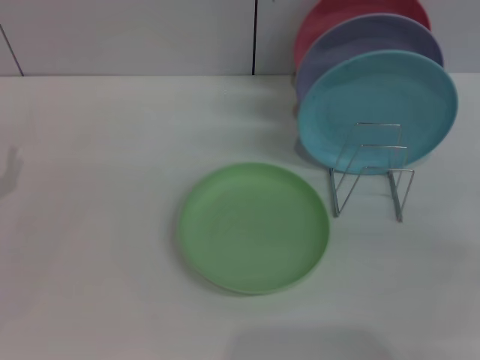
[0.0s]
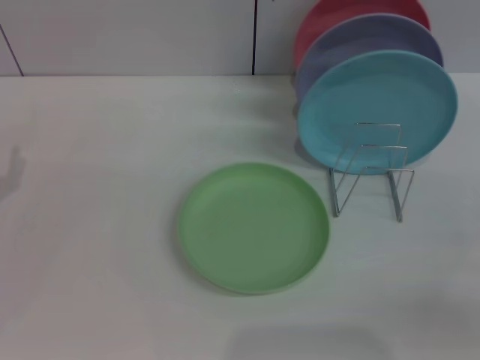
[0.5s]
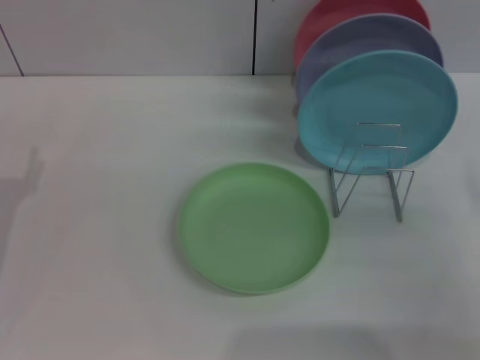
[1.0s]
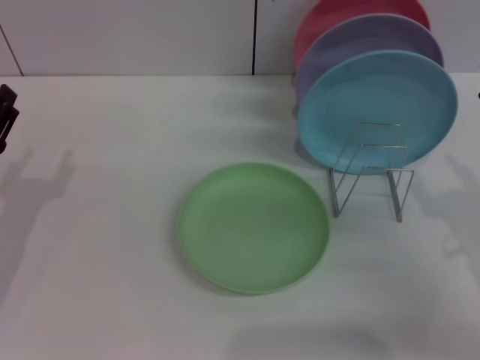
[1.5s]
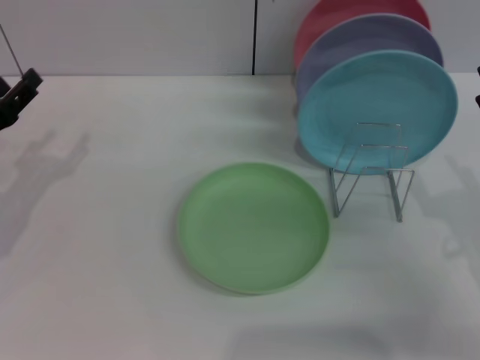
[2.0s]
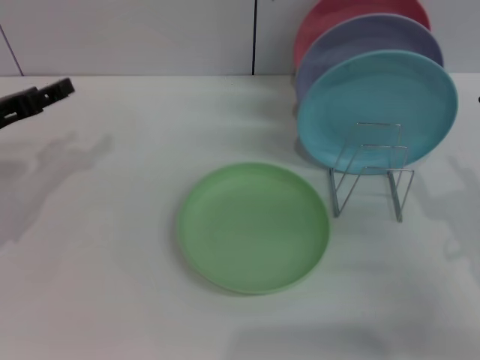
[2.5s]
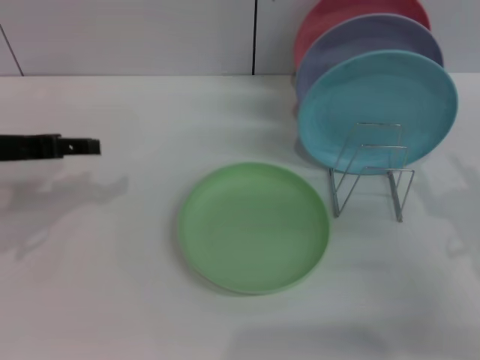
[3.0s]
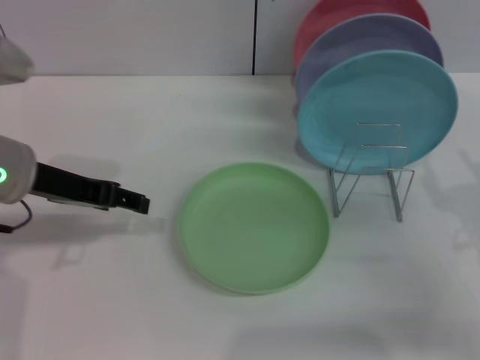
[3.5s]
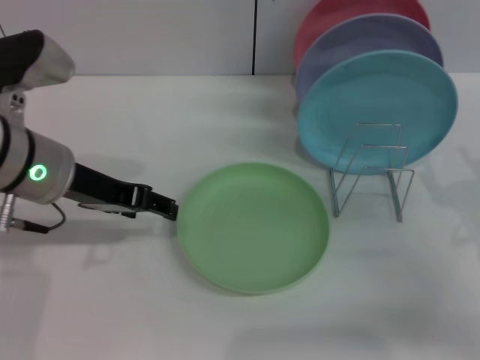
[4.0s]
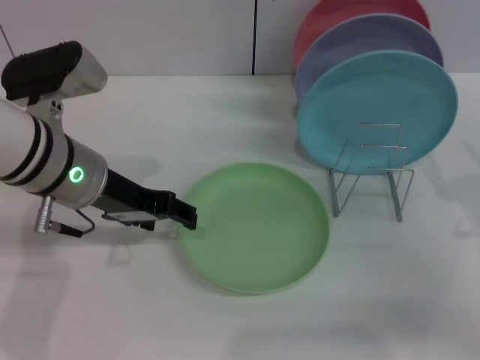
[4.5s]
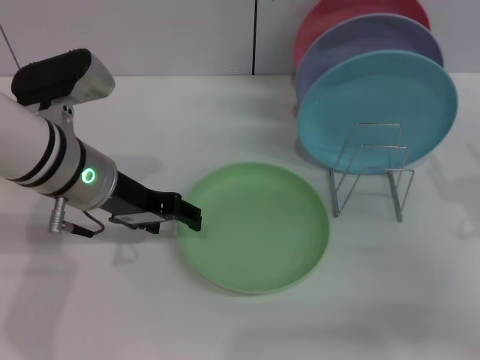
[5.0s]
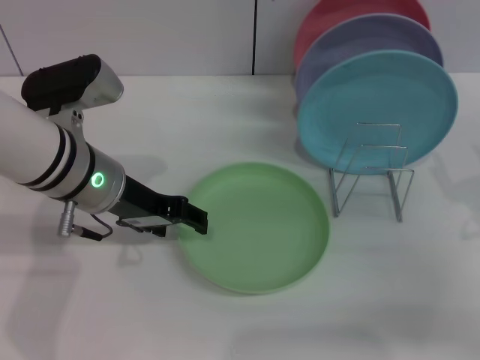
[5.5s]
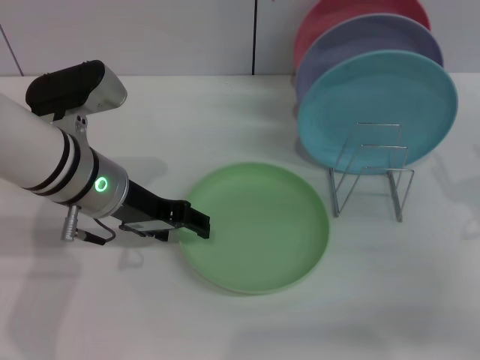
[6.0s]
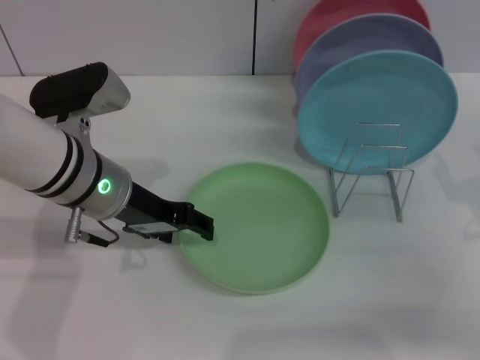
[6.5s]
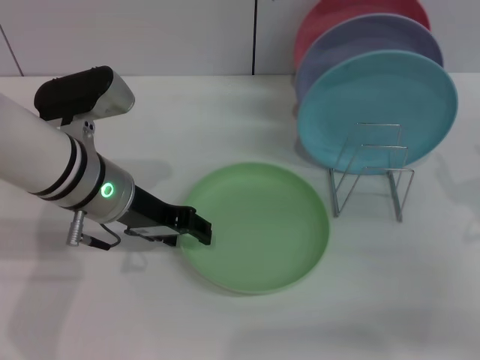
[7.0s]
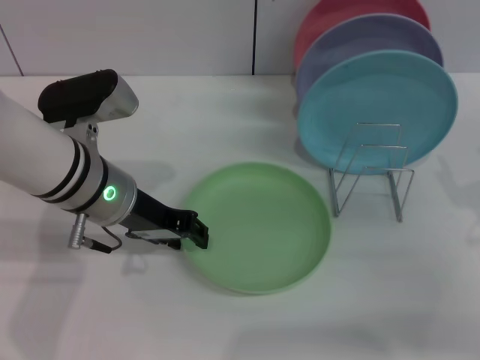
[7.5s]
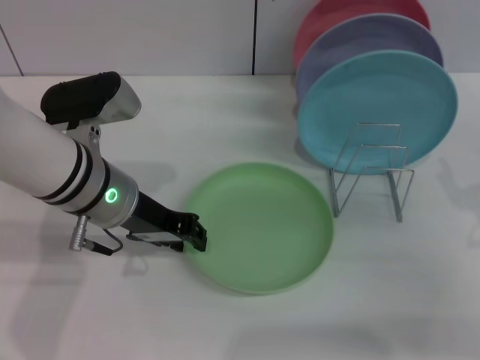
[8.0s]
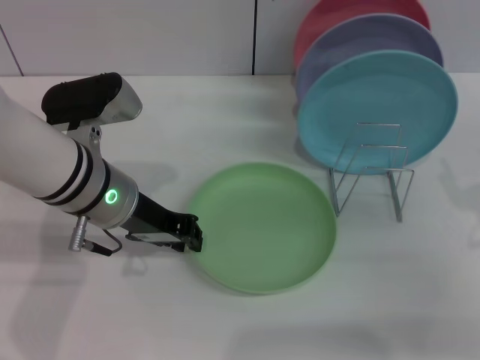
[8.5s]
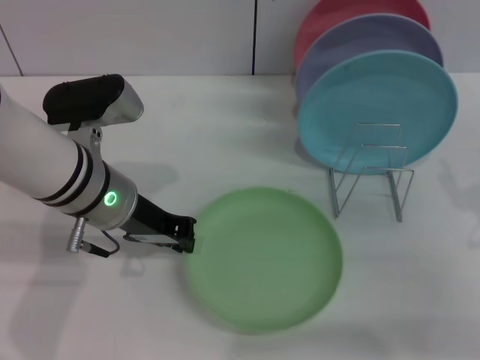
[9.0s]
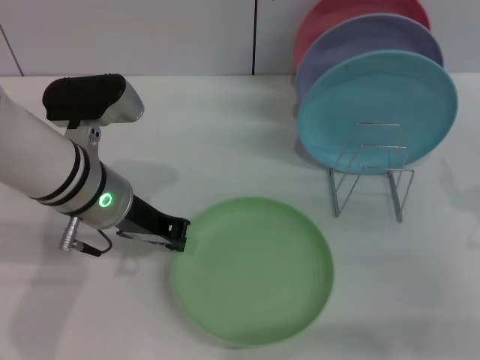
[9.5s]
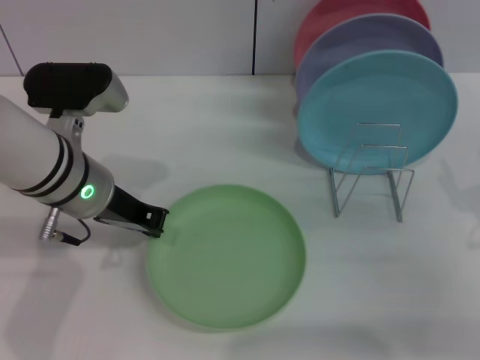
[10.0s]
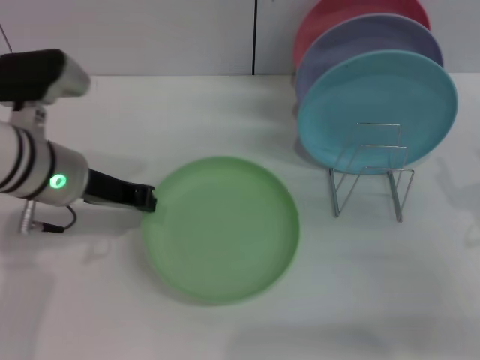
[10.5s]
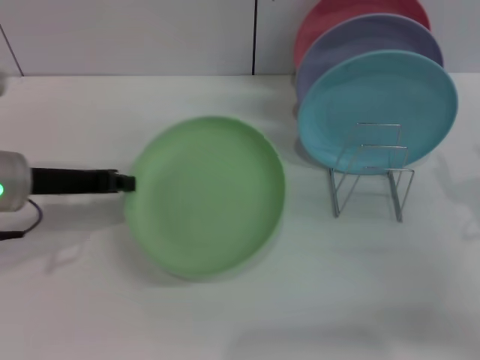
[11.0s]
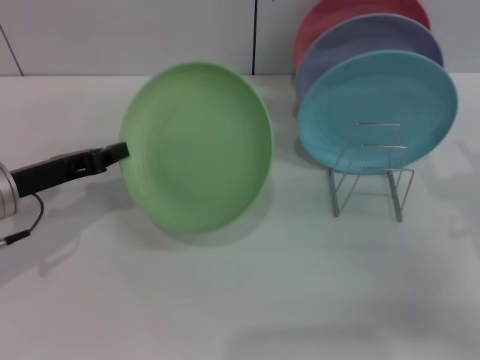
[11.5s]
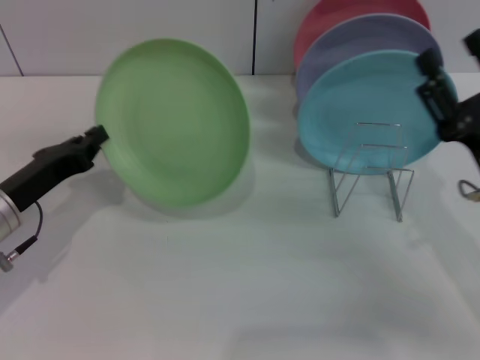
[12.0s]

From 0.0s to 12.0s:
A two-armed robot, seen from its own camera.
Task of the whole recording: Grip the plate with one hand, pass it to the other, then set it on the shelf.
Step, from 0.0s to 11.0s: Pick up the plate with the left gripper.
From 0.0s to 2.0s: The left gripper shifts by roughly 5 cm.
From 2.0s to 4.0s: The left gripper moves to the right and upward, roughly 15 cm.
From 4.0s to 6.0s: The left gripper ends up approximately 5 cm from where it was.
From 6.0s to 8.0s: The left gripper closes up.
From 8.0s to 10.0s: The left gripper closes.
From 10.0s to 12.0s: The left gripper travels to the left and downward by some 15 cm; the right gripper is displaced to the left by approximately 5 cm.

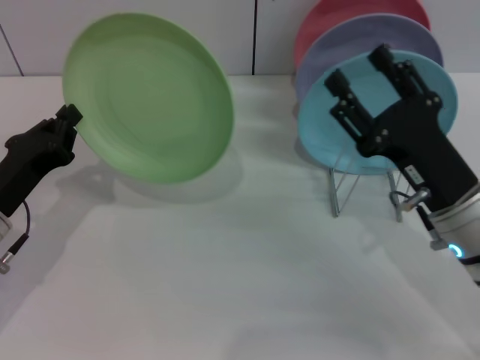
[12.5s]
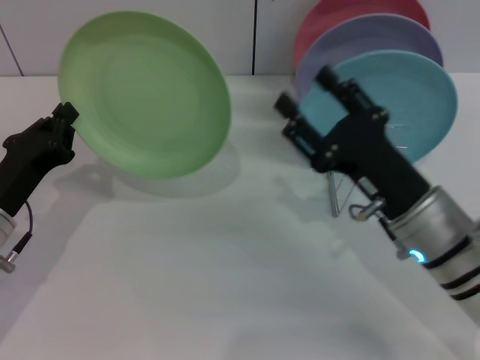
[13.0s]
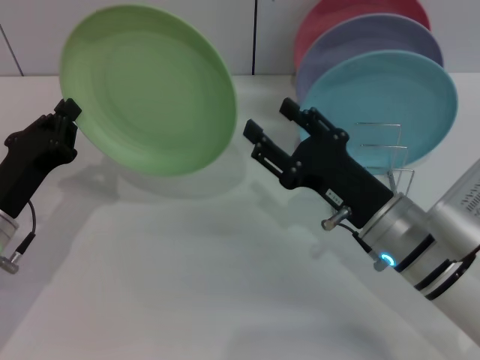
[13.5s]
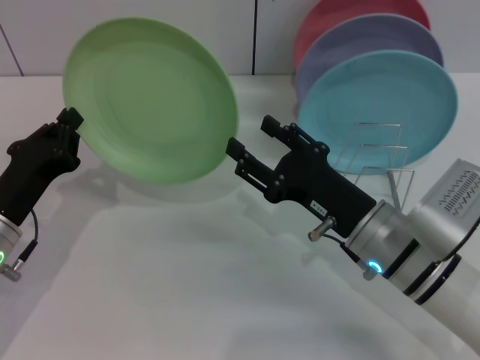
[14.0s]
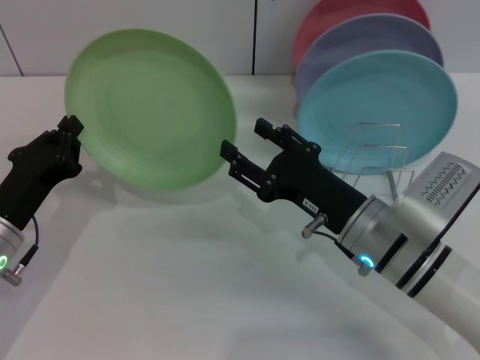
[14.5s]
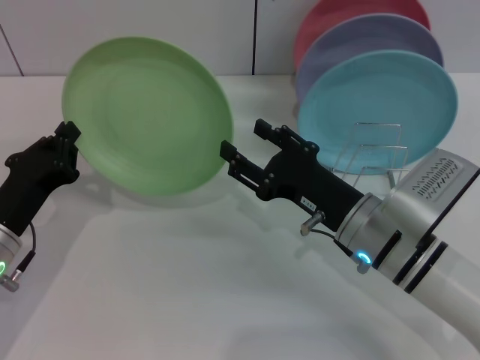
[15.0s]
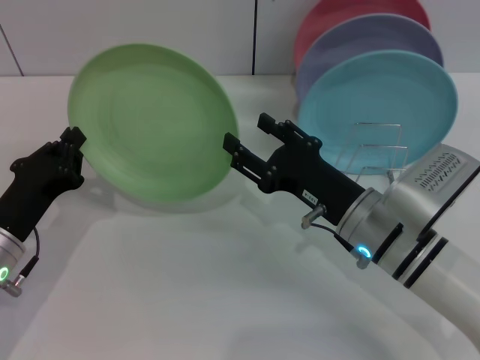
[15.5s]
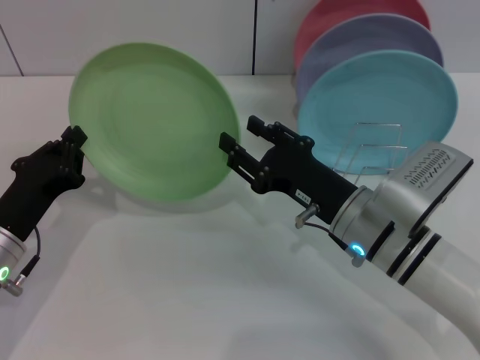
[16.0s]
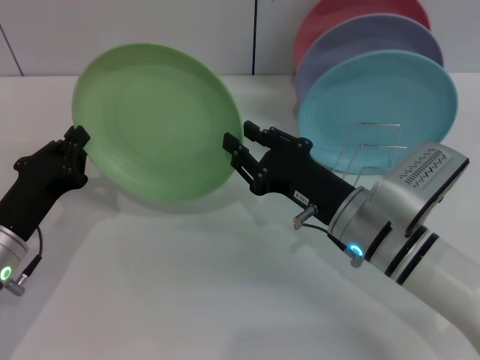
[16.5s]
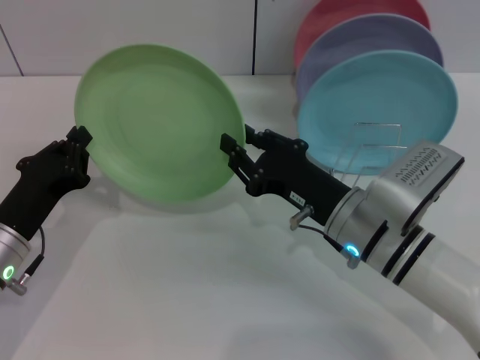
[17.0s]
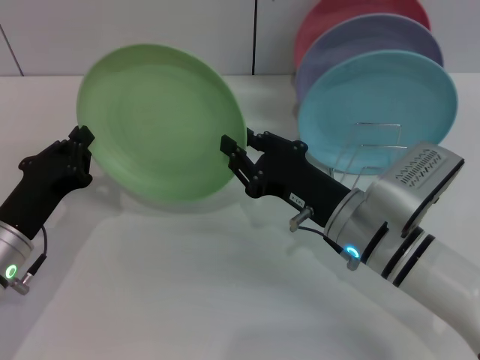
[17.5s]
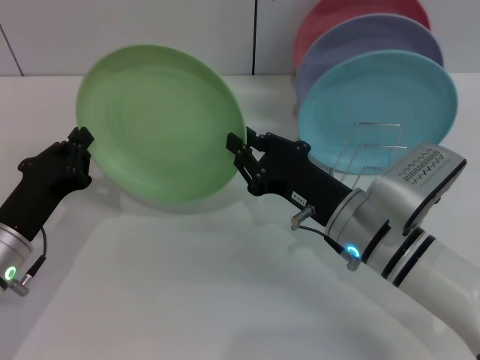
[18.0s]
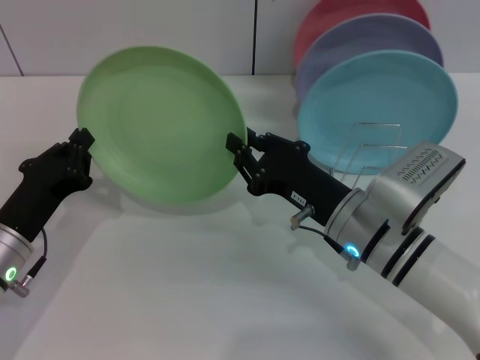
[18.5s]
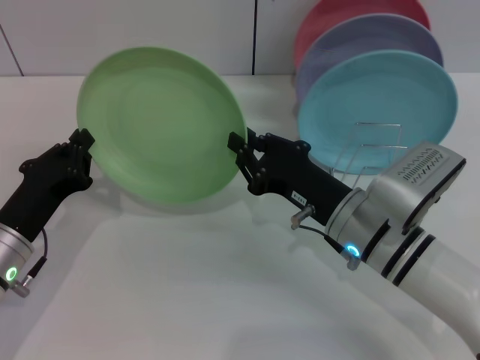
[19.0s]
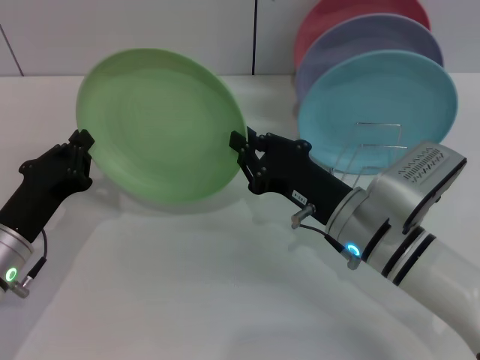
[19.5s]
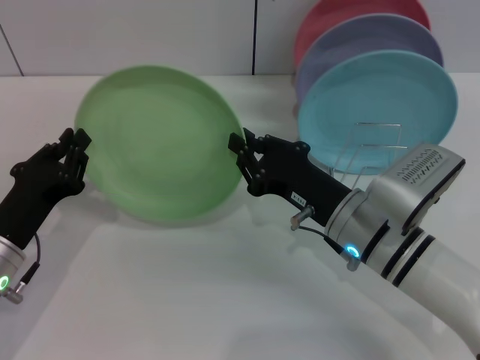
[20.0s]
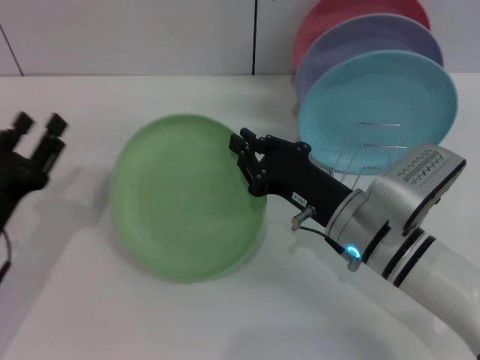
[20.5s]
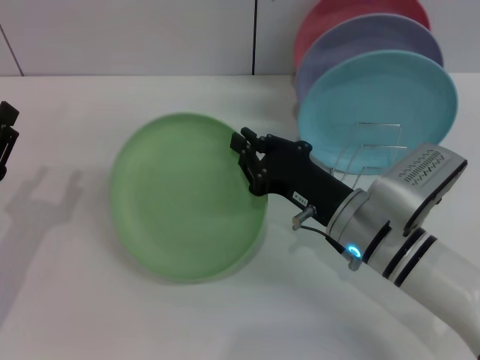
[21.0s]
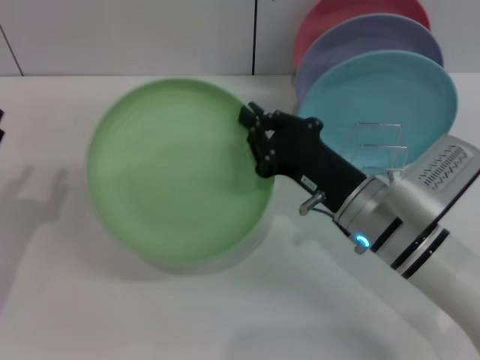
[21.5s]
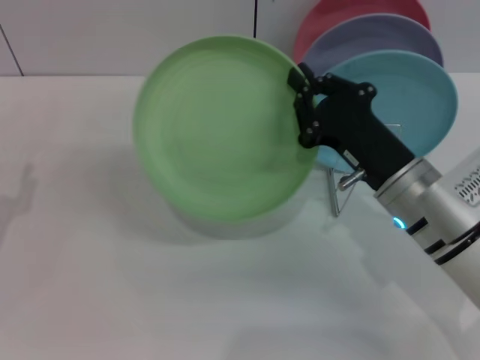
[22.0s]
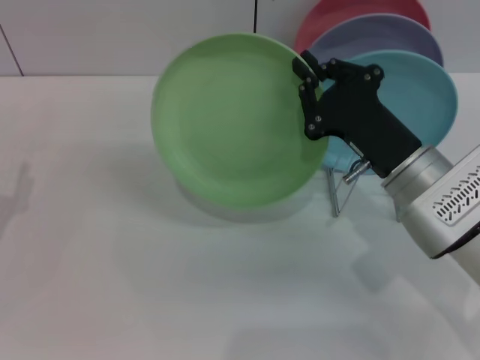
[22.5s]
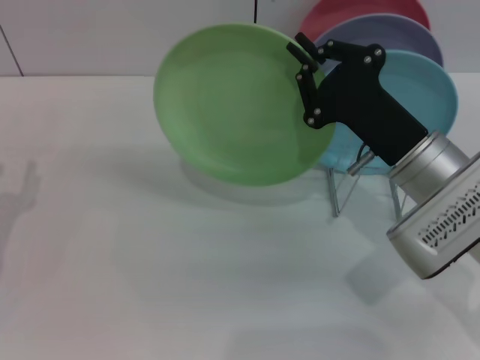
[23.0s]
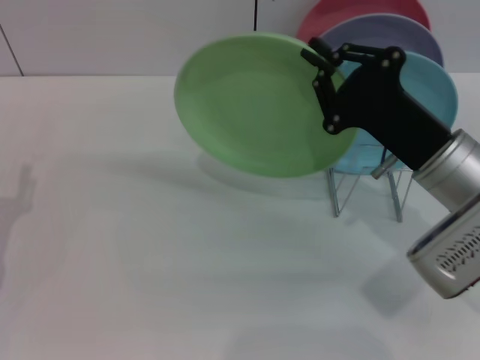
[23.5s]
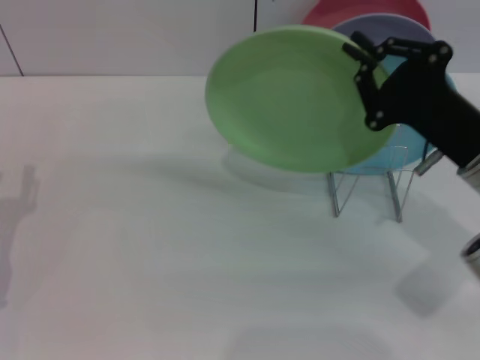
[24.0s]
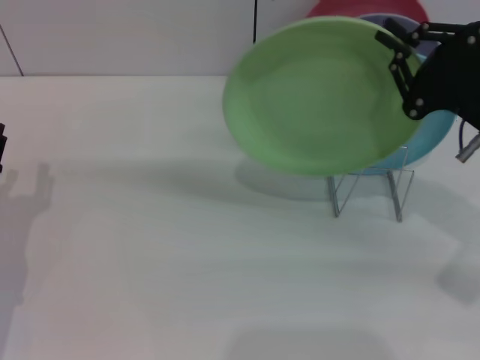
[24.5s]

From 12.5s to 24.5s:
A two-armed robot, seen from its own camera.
Task of the whole recording: Grip the plate with one hand, pass it to the other, then set it on the shelf.
Step, from 12.5s to 21.0s: Pass the plate from the left gripper to the right gripper.
From 12.5s to 14.5s: The right gripper shifts some 5 cm to the left.
From 14.5s to 16.5s: The right gripper closes its fingers.
From 16.5s to 18.5s: The two grippers keep their place.
From 18.5s to 20.5s: The left gripper opens up.
From 20.5s to 22.5s: The right gripper moves some 5 cm.
From 22.5s to 24.5s: The right gripper goes roughly 10 cm to the right.

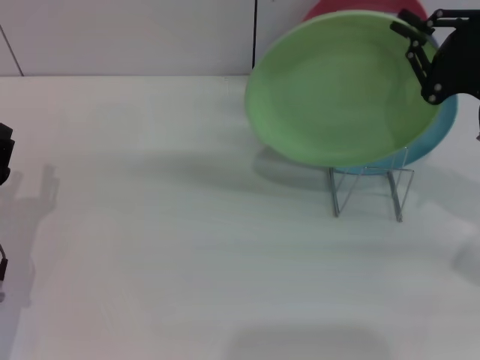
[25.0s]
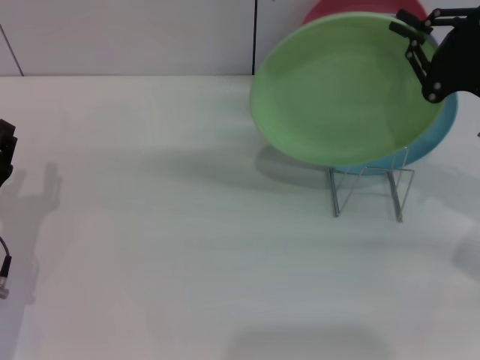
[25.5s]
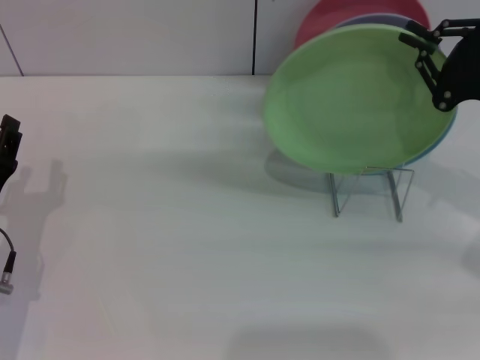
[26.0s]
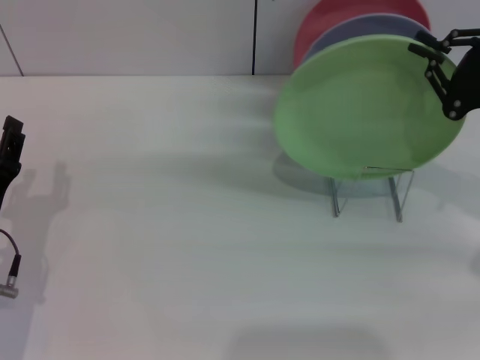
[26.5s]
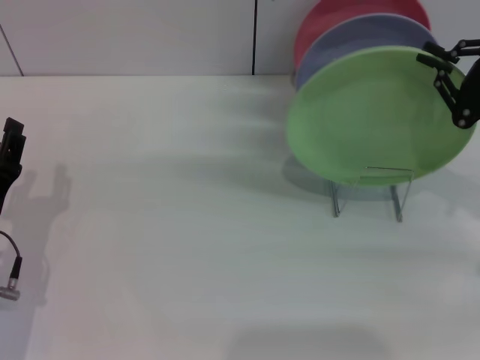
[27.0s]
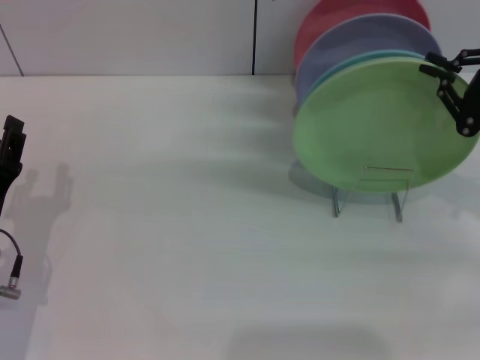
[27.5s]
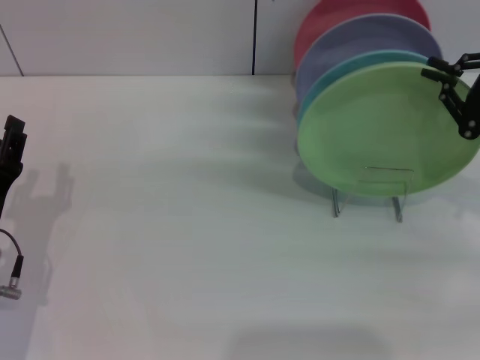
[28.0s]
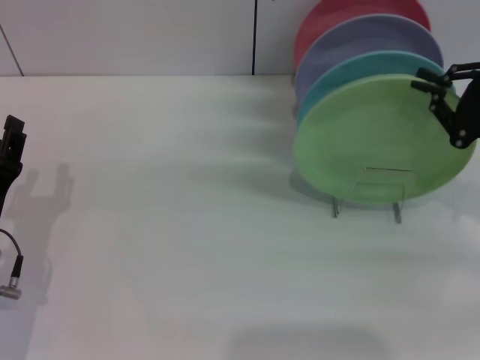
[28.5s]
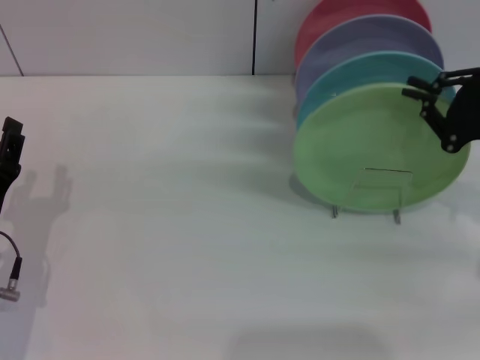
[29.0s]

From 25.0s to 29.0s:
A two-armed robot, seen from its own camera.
Task of the whole recording: Grip the plate with one hand, pass it to the other, then set it on the shelf.
From 25.0s to 29.0s: There are only small adjustments of the grippers.
